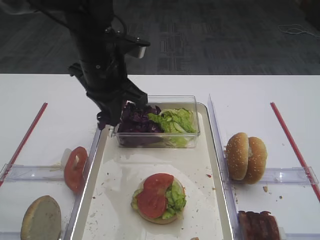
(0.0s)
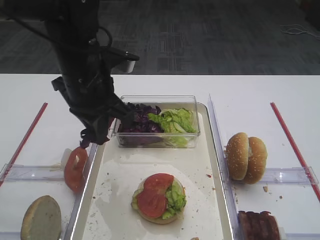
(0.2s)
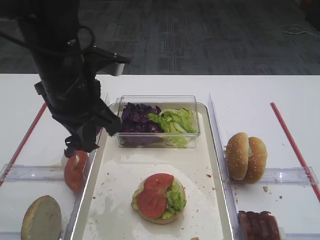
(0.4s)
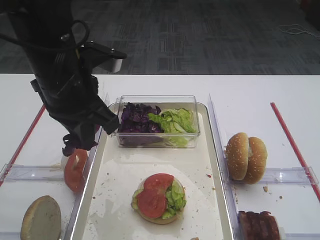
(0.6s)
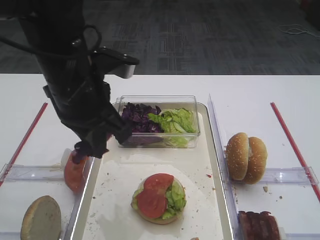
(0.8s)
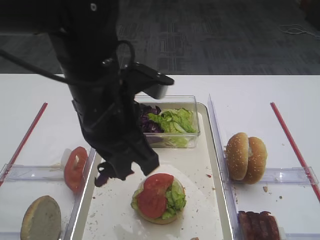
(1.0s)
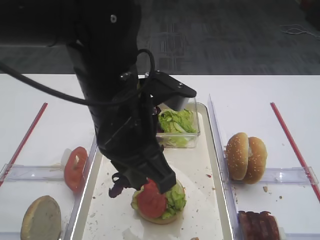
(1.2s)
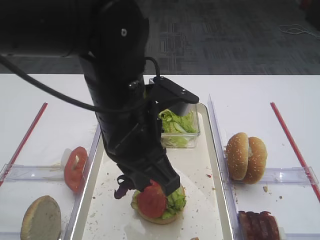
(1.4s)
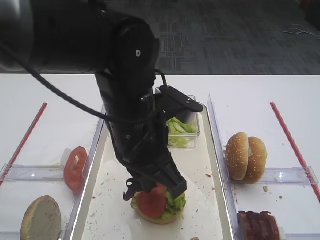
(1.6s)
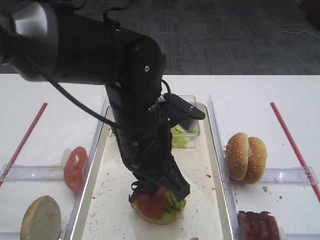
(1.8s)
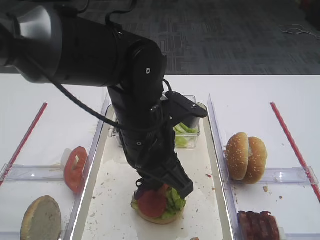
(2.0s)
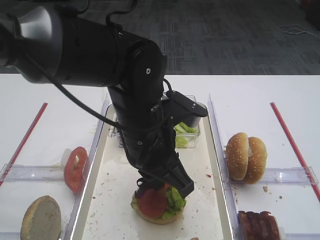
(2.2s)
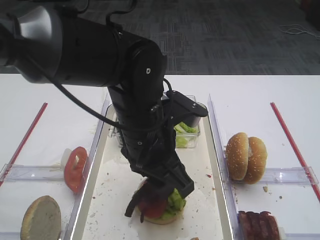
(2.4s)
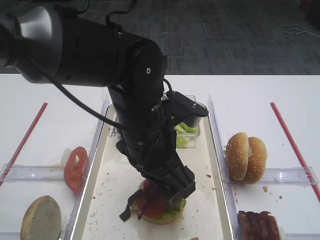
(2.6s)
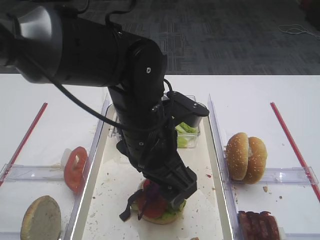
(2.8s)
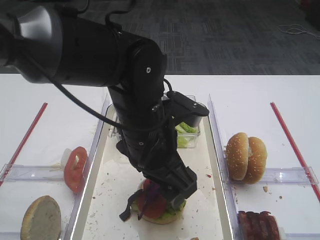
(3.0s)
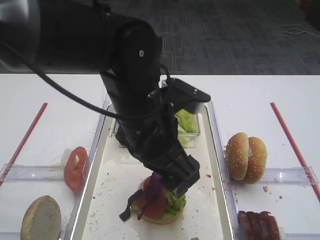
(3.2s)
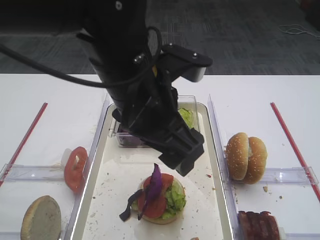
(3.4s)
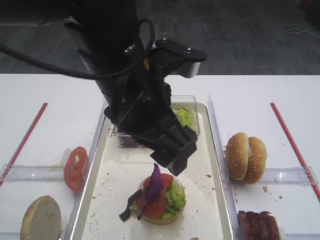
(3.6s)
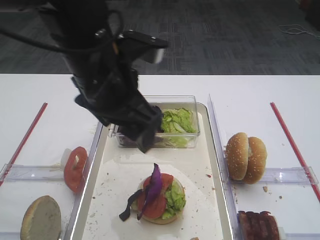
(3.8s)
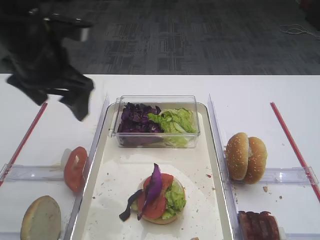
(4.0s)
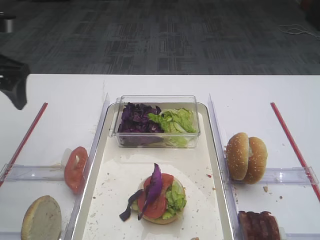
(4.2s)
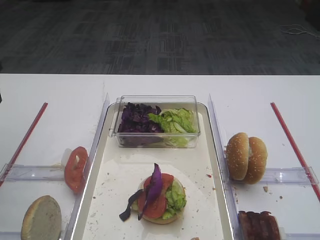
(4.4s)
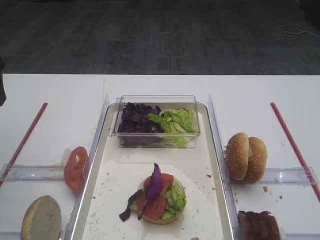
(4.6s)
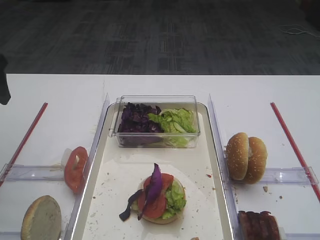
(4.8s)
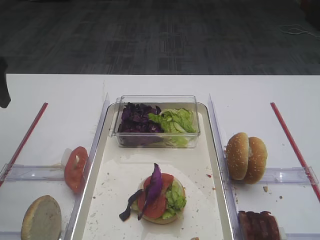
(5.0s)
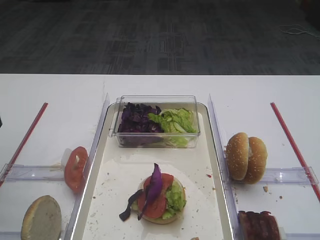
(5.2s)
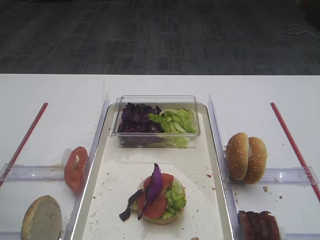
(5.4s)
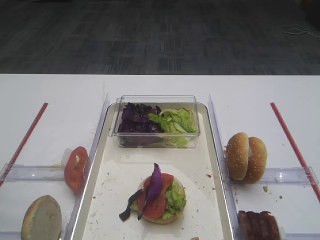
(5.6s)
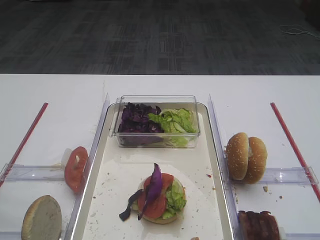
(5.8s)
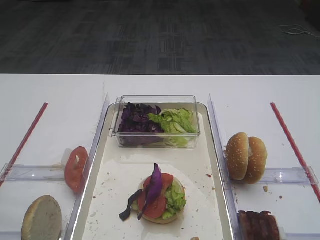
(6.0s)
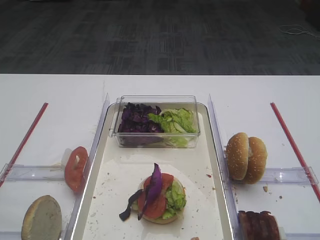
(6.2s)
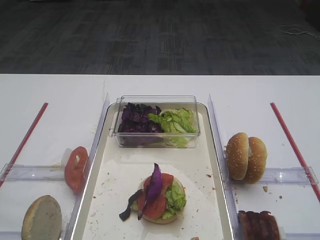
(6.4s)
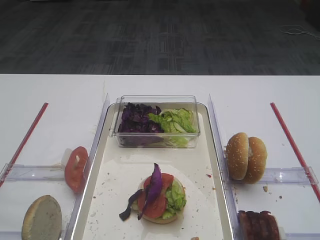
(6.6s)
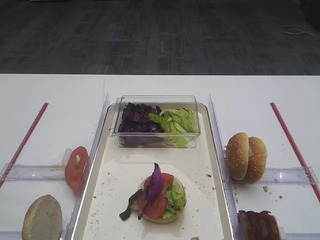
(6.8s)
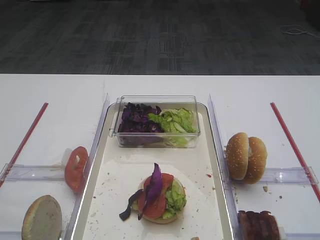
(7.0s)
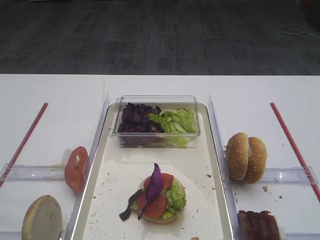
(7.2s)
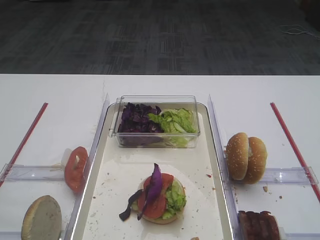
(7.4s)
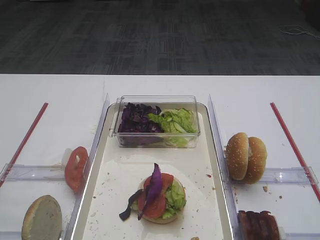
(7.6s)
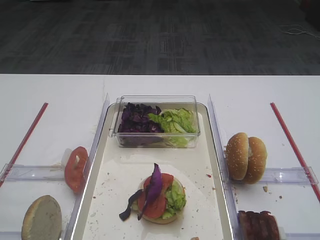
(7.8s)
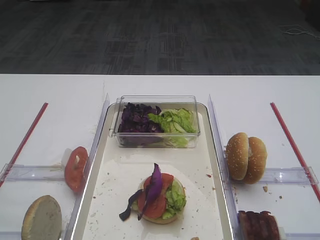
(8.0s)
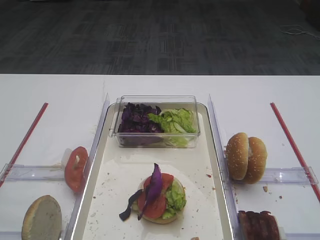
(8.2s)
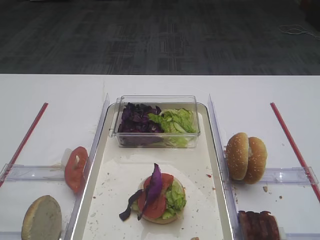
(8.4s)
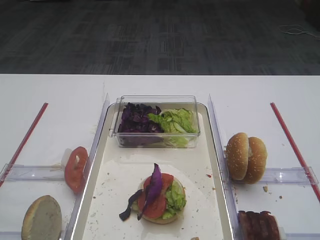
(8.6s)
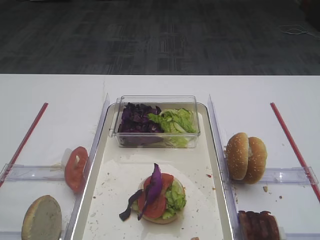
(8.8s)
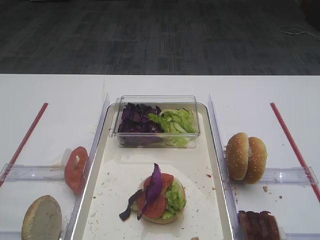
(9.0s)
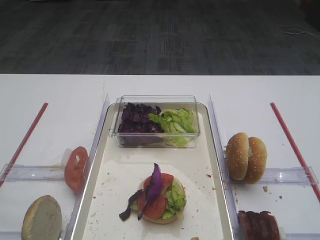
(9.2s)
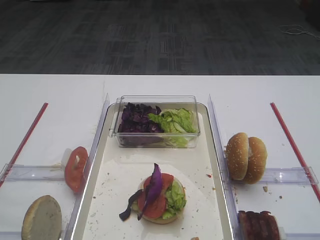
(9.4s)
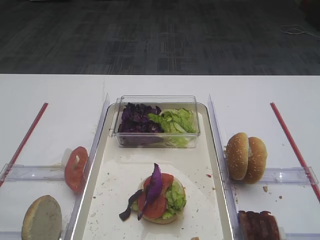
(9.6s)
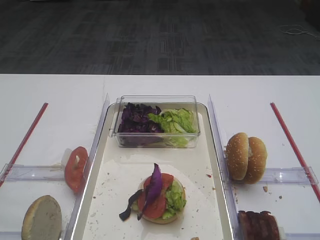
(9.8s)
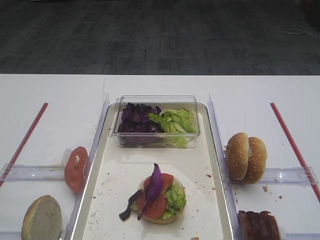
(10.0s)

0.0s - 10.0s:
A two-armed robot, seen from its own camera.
Step, 0.0s - 4.0s: Place the purple cabbage on the tomato slice with the left gripper.
0.0s - 1.4s: The left gripper moves backward and to the right, some 15 cm.
1.4s - 2.8s: The left gripper opens its fingers.
2.8s - 4.2s: The left gripper is displaced to the left by some 25 cm.
4.2s - 5.8s: The left gripper is displaced backward by about 20 cm.
7.2s - 10.0s: The two grippers keep their place.

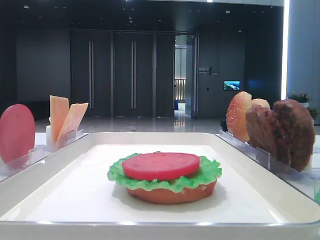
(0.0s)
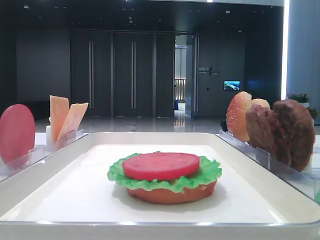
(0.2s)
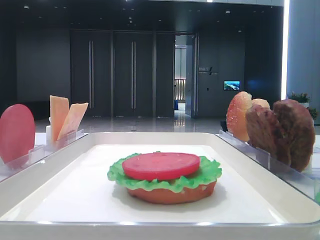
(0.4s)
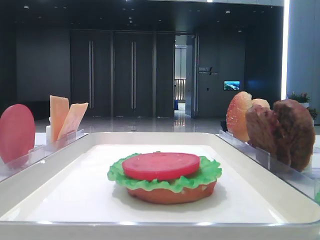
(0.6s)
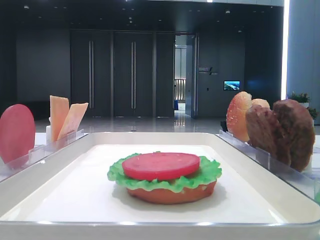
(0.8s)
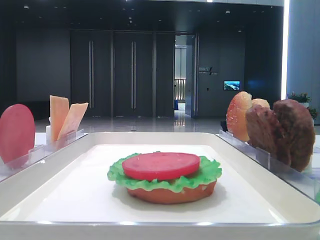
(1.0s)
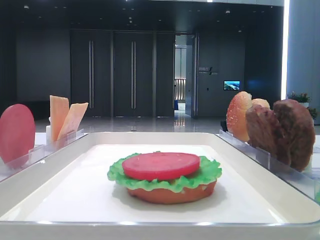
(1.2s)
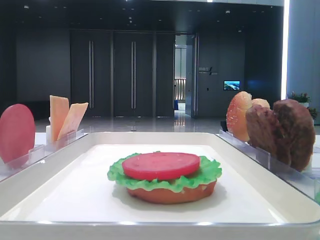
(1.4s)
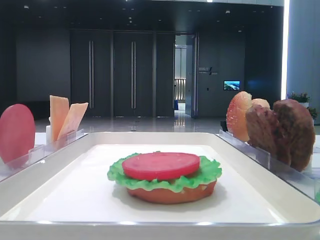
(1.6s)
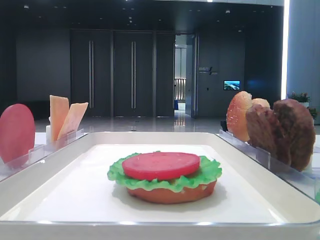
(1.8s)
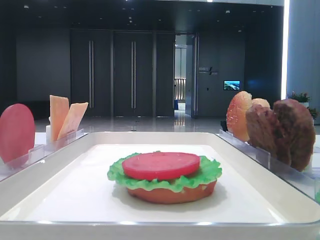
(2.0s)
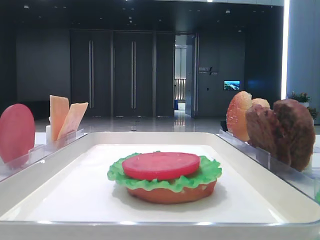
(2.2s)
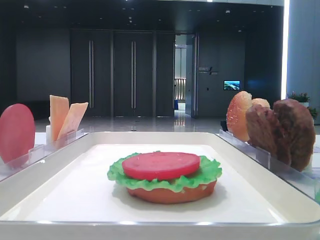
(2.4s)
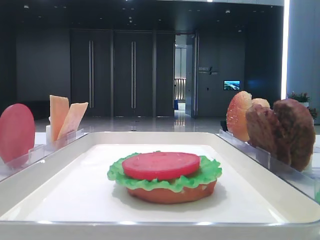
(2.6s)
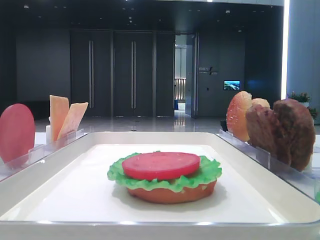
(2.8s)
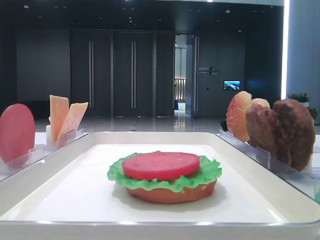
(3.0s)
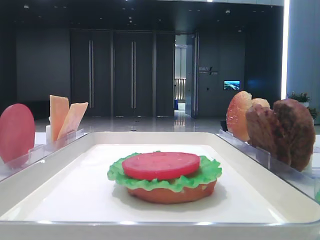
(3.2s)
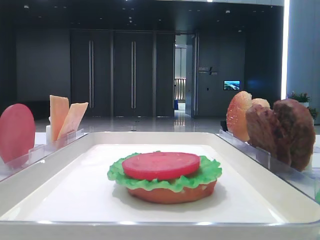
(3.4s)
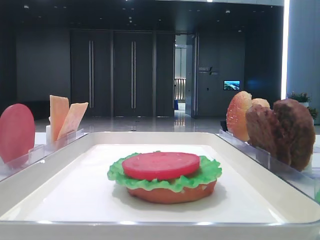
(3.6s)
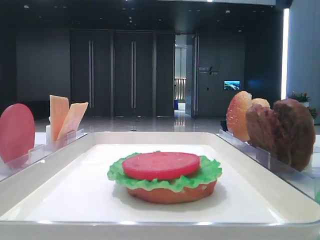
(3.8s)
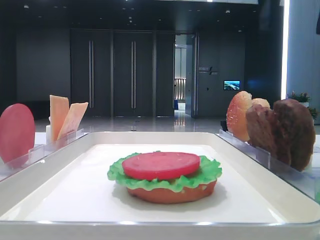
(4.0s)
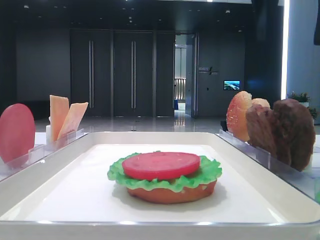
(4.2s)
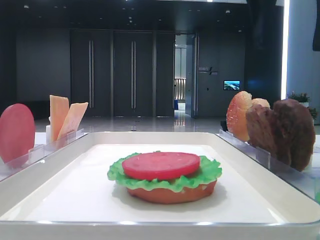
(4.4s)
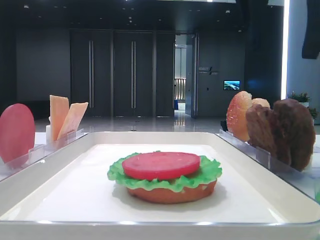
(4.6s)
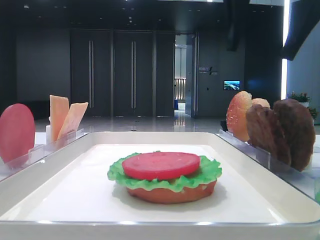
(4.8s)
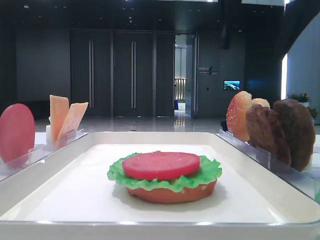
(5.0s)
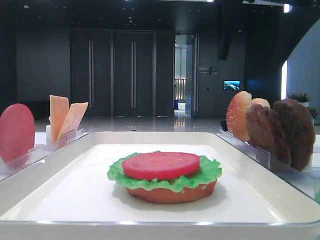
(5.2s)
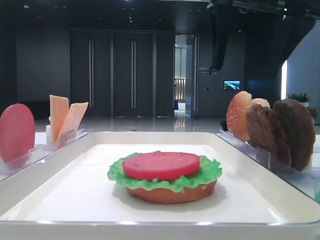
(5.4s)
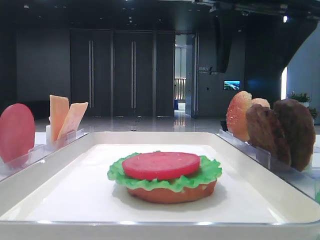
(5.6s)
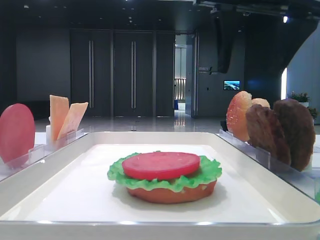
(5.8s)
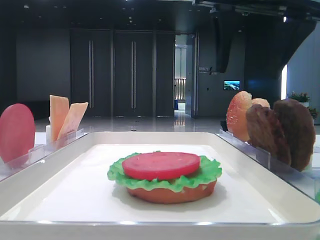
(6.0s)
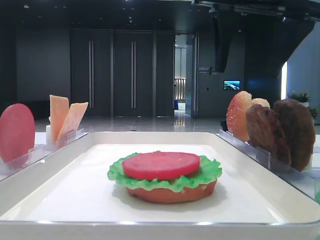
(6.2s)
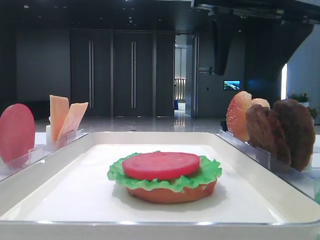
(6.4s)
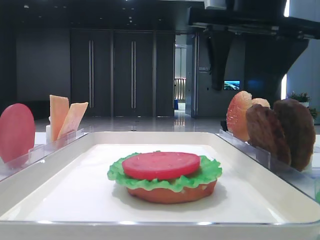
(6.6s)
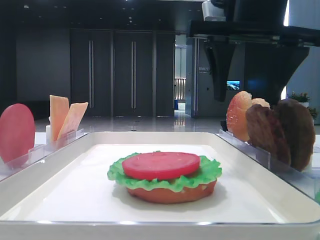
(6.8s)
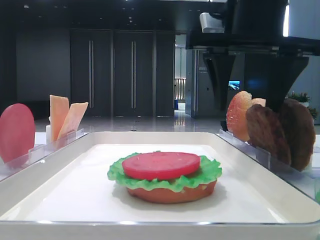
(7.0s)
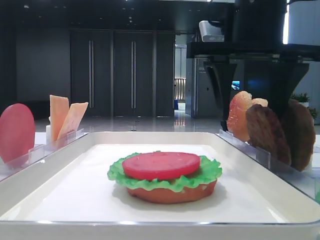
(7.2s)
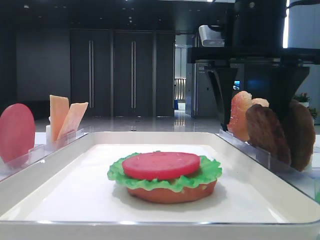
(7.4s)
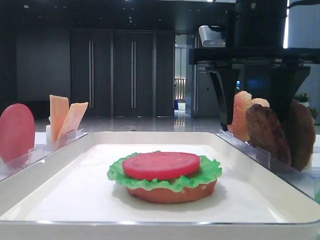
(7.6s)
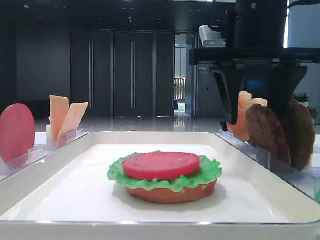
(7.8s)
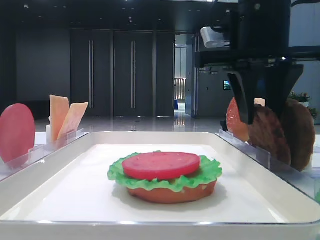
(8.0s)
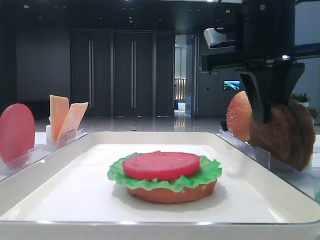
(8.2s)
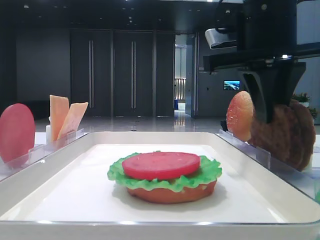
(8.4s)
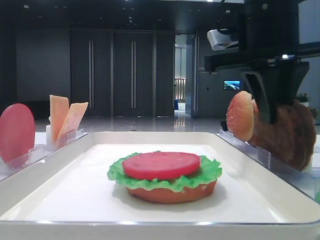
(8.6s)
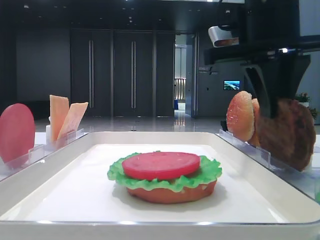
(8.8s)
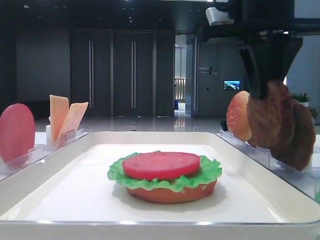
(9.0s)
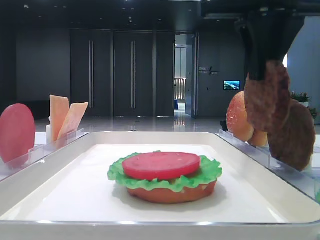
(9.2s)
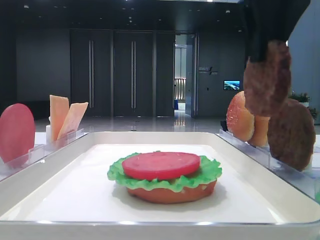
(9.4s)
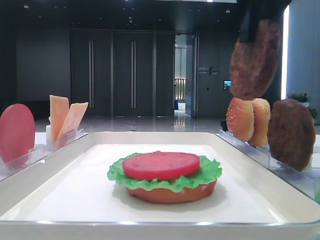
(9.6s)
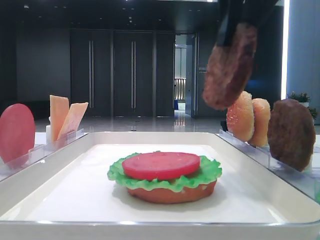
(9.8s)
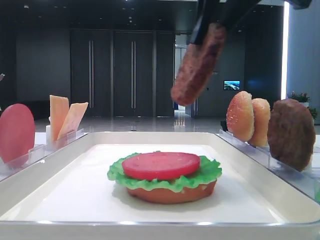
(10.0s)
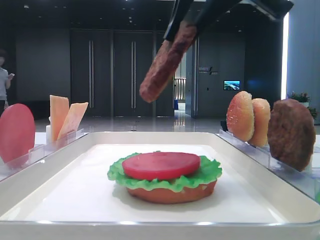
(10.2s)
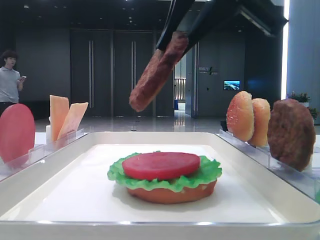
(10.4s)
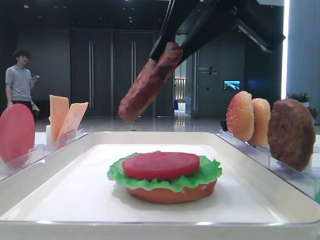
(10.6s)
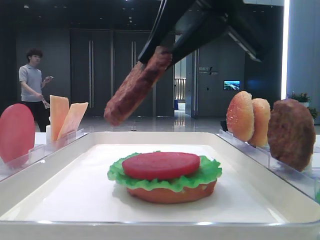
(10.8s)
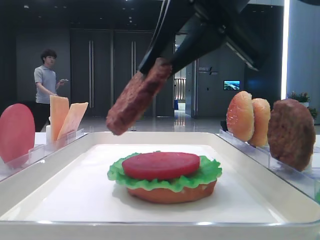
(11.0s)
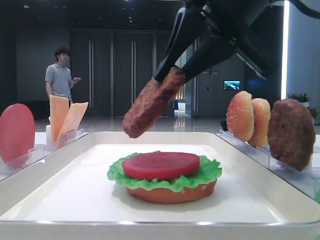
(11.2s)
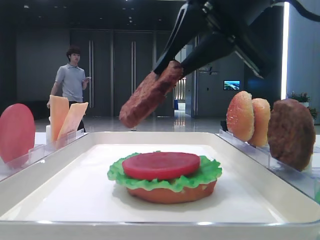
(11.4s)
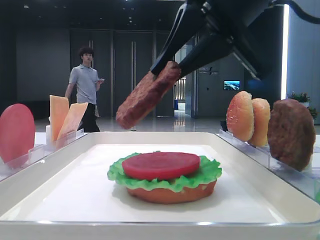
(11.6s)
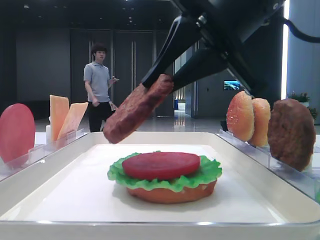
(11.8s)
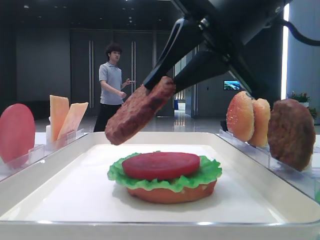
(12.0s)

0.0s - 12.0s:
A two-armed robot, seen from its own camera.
Step, 0.0s - 8.0s: Grab the patty with the right hand.
3.0s - 4.4s: The right gripper travels to the left and downward by roughly 15 cm.
4.4s - 6.0s: The grippers stay close to where they were, moving slightly.
6.0s - 7.6s: The right gripper moves downward, some 5 cm.
7.6s - 9.0s: The right gripper closes.
9.0s - 10.4s: The right gripper is displaced backward by approximately 5 cm.
10.4s - 12.0s: The right gripper shifts roughly 5 cm downward.
